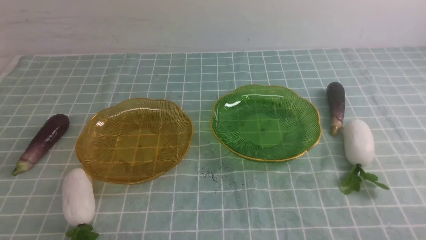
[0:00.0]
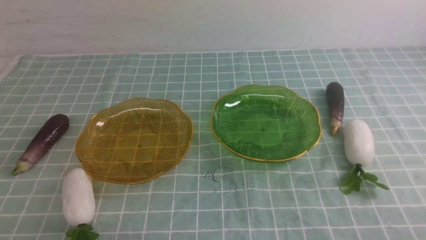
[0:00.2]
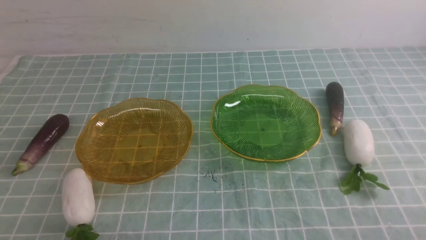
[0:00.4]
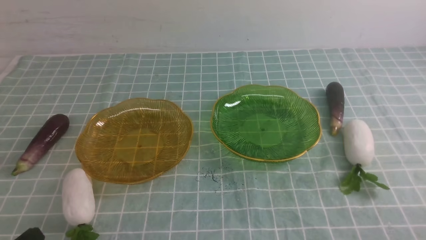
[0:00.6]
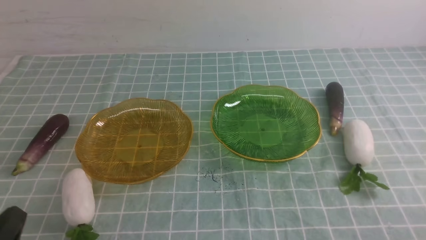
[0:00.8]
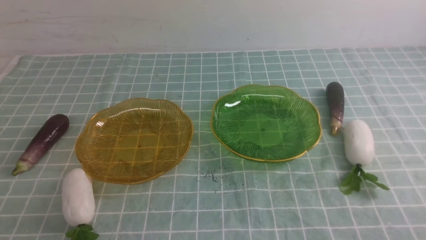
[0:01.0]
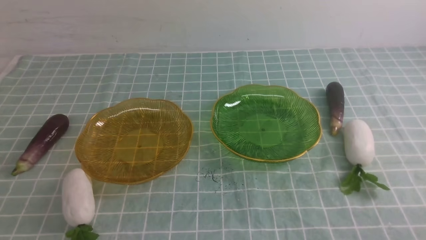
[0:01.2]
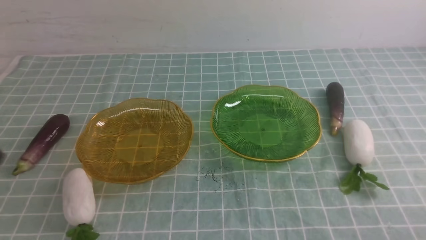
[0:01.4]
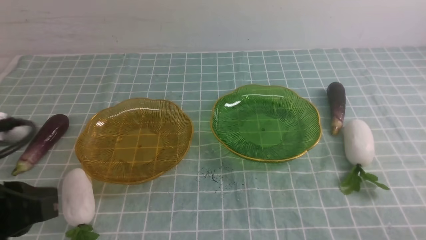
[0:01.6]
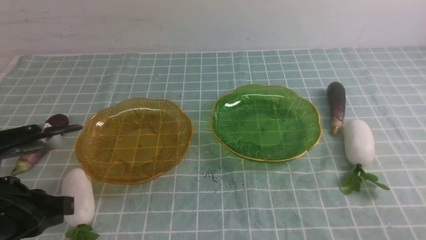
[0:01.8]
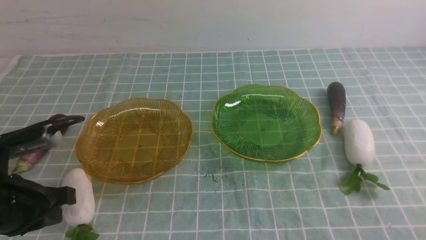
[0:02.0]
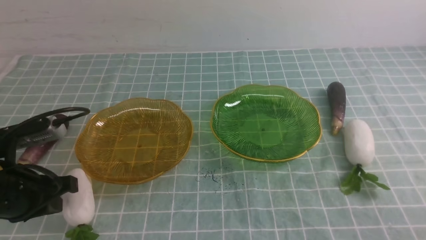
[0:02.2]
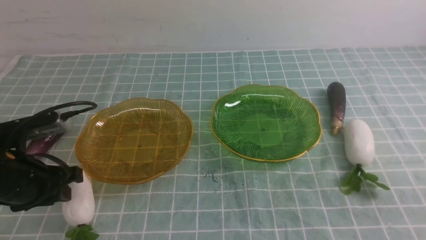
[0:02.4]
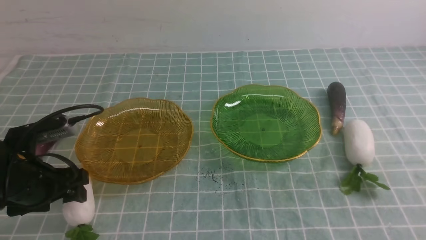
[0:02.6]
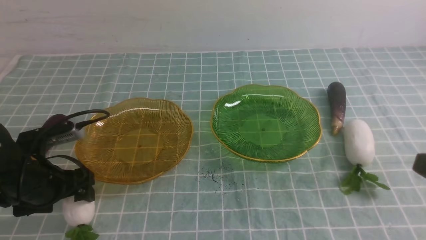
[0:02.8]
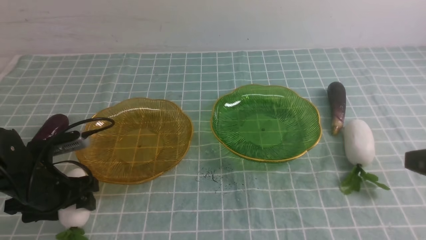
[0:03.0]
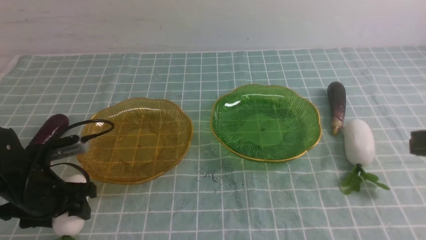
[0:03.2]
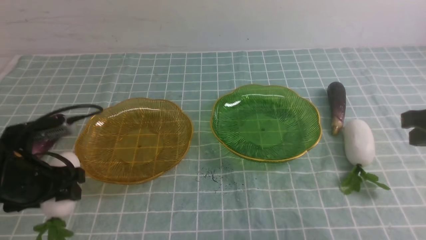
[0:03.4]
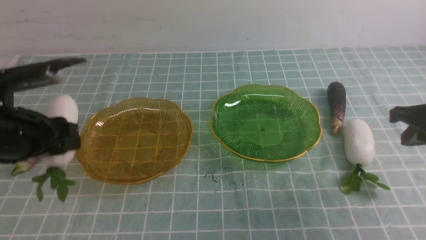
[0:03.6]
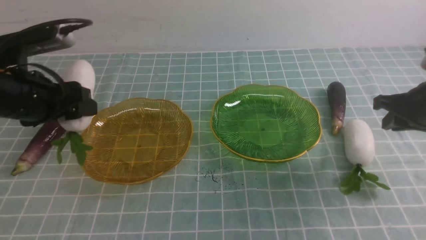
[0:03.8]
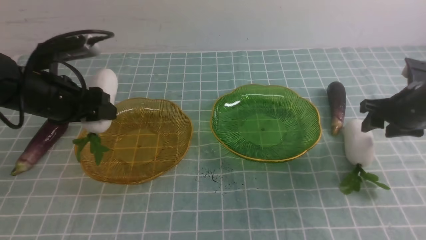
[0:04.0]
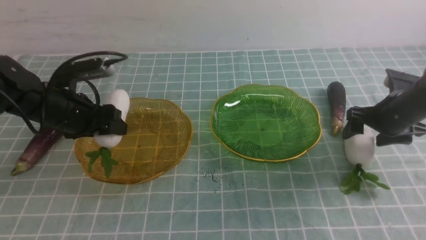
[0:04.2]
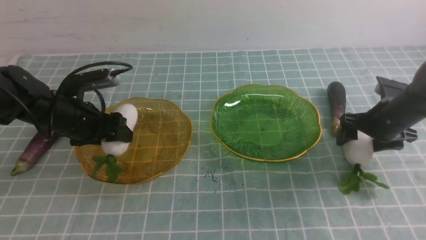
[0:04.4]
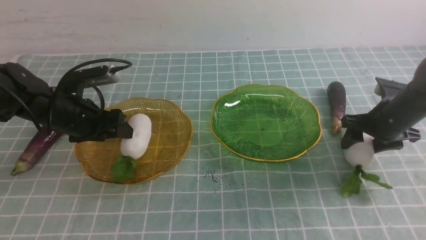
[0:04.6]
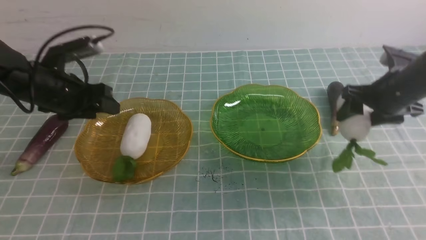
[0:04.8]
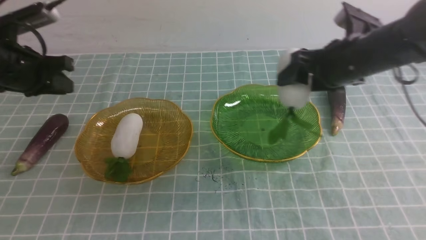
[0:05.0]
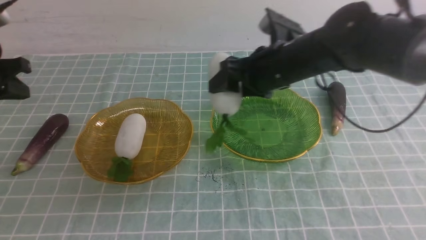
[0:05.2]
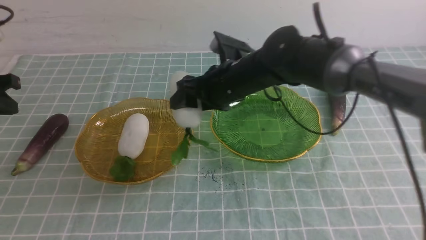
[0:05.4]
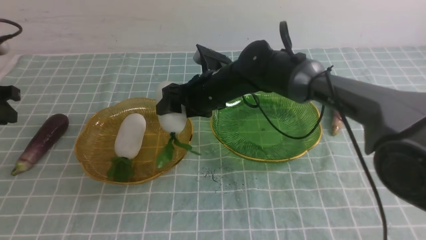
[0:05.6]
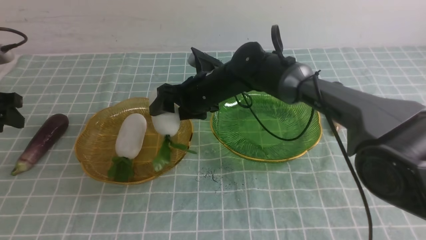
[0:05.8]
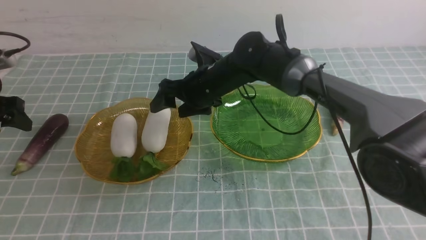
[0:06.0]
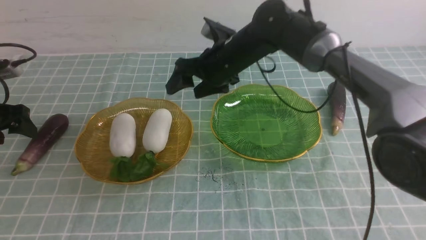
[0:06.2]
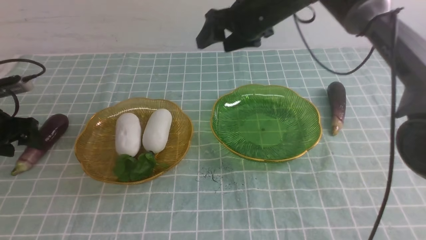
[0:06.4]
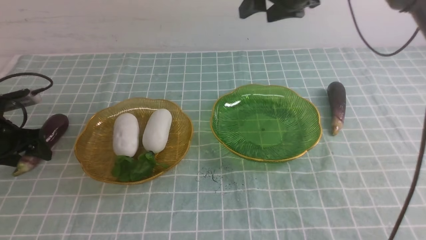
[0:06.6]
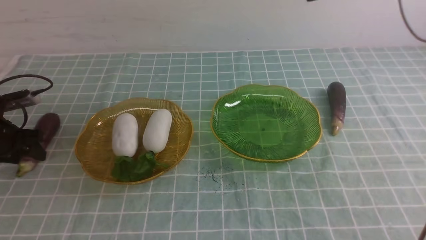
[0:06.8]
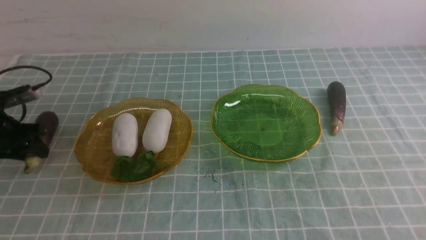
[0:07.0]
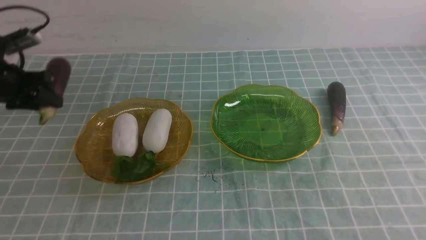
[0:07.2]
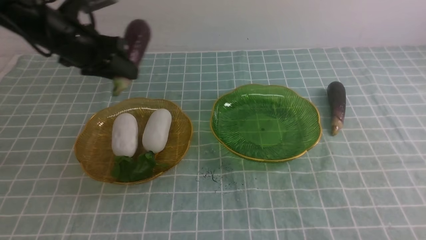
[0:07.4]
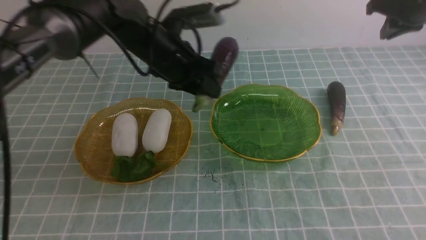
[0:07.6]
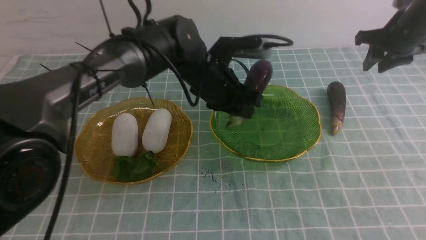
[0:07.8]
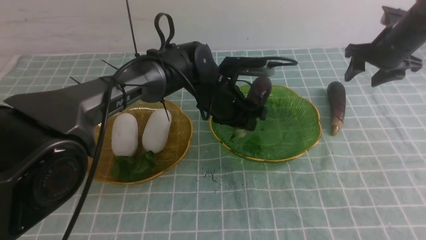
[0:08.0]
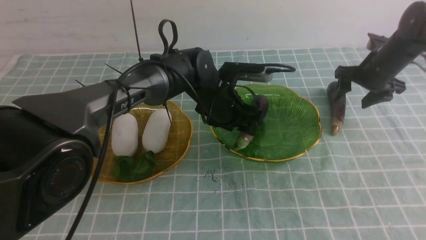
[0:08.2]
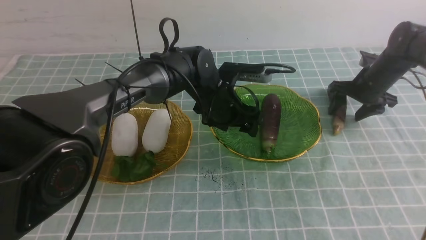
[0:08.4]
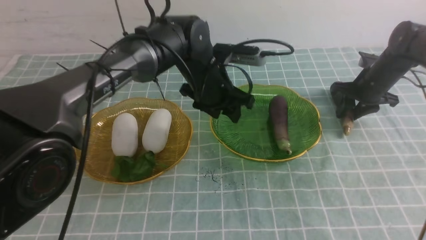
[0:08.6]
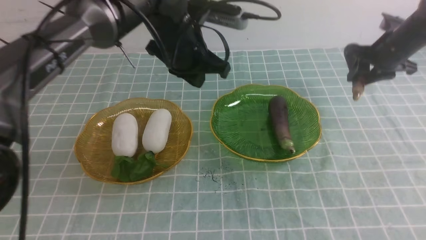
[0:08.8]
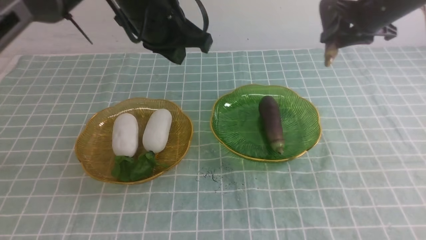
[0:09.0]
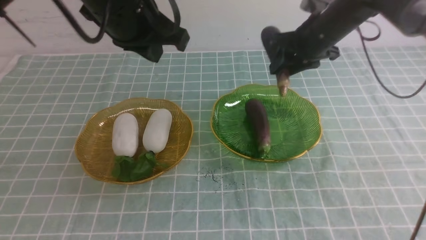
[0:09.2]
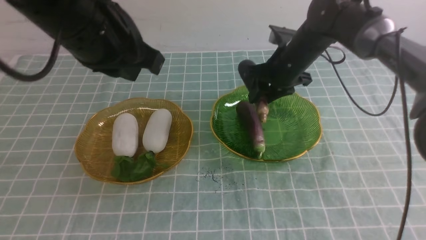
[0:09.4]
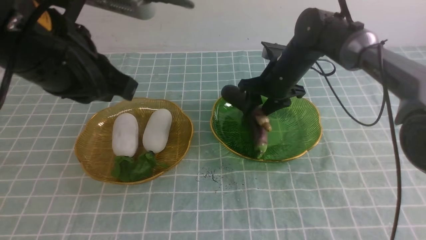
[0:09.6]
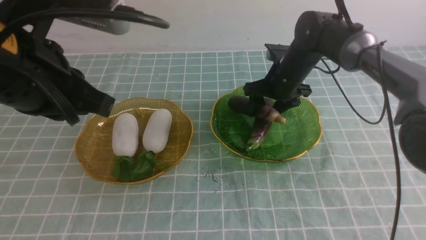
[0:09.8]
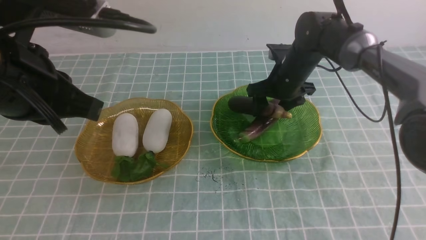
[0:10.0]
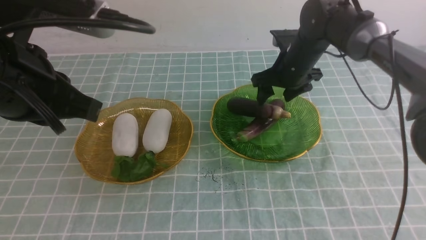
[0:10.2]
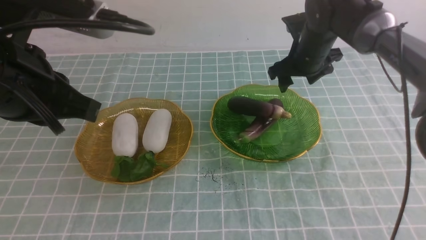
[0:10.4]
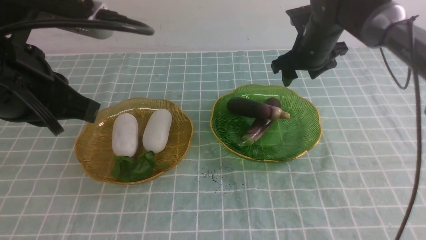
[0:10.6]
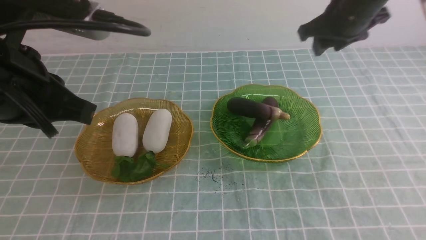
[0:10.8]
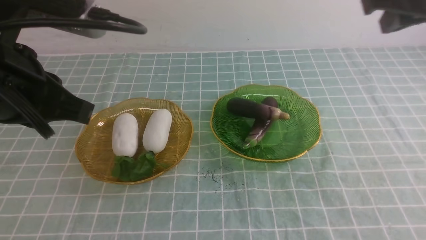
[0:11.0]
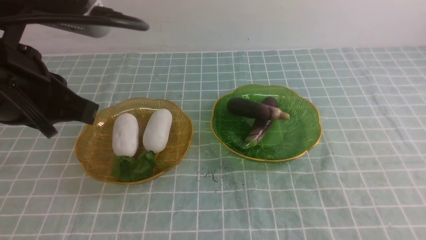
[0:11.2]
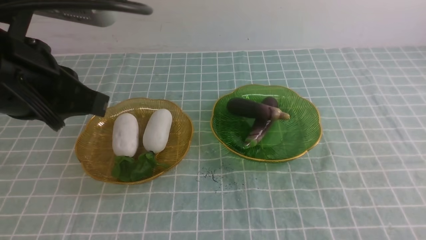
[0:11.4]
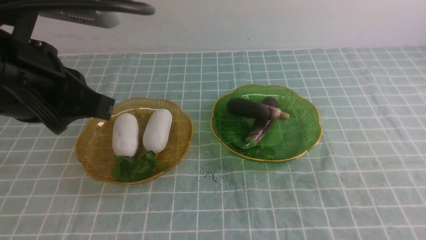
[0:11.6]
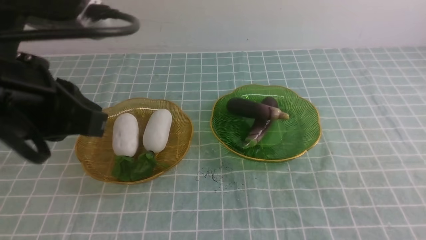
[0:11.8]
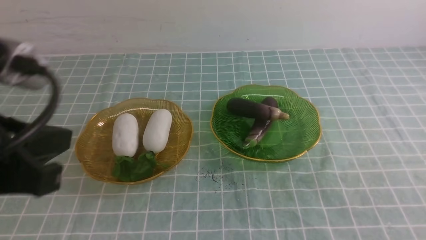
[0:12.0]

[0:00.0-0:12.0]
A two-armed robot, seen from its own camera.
Step, 0:00.0 to 0:04.0: use the left arm to grab a radish and put it into the left plate.
Step, 0:04.2 to 0:05.8: use the right arm to grab a radish and put it into the left plate.
Step, 0:06.0 to 0:08.2: use the left arm to grab an eggplant and put it into the right plate.
Step, 0:08.4 to 0:10.2: use the right arm to grab an eggplant and put it into the right plate.
0:00.0 to 0:01.6: The left gripper is displaced upward and forward by about 15 cm.
0:01.6 to 0:03.0: The left gripper is displaced forward and downward by some 20 cm, and opens up.
0:03.0 to 0:04.4: The left gripper heads forward, covering roughly 10 cm, and moves approximately 10 cm upward and comes back; the right gripper shifts approximately 25 cm forward and downward, and opens up.
0:04.4 to 0:06.0: The right gripper moves to the left, approximately 30 cm; the left gripper travels to the left by approximately 15 cm, and closes and opens again.
0:06.0 to 0:07.6: The grippers both shift to the right by roughly 30 cm. The left gripper closes up; the right gripper closes its fingers.
0:07.6 to 0:09.0: The left gripper heads upward and backward, covering approximately 10 cm, and closes its fingers. Meanwhile the right gripper moves to the left, some 10 cm, goes downward and returns, roughly 15 cm each way, and opens, then closes again.
0:09.0 to 0:10.4: The right gripper travels to the left by roughly 10 cm, and opens. Meanwhile the left gripper goes roughly 20 cm backward and to the left.
0:10.4 to 0:12.0: The left gripper shifts approximately 10 cm backward. Meanwhile the right gripper moves backward, some 50 cm, and closes.

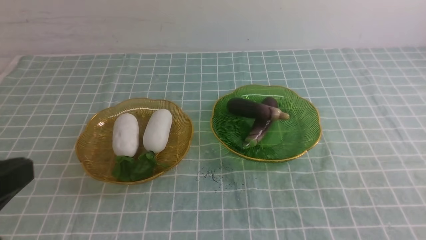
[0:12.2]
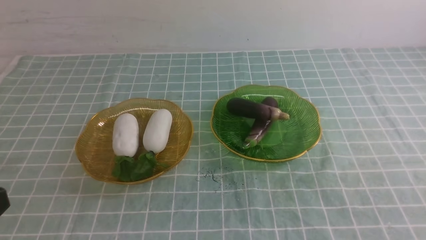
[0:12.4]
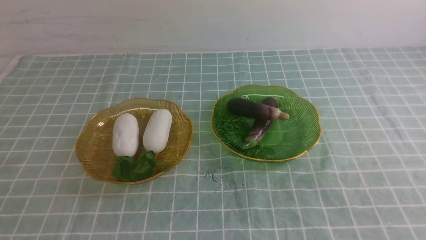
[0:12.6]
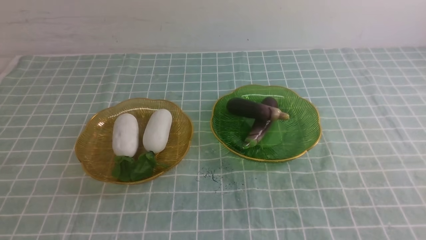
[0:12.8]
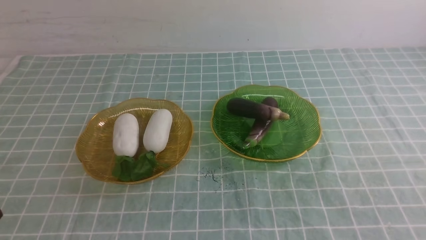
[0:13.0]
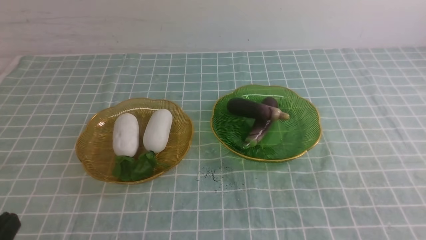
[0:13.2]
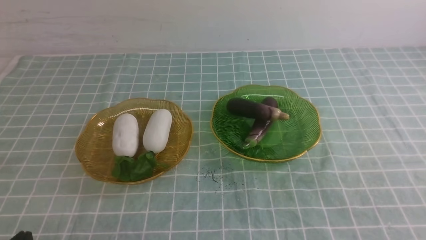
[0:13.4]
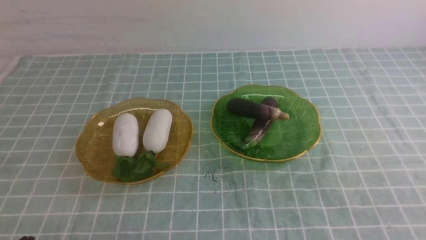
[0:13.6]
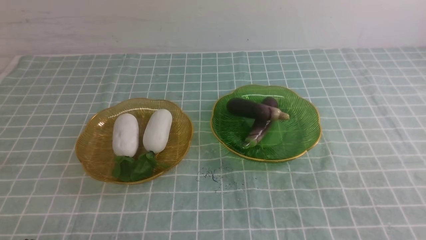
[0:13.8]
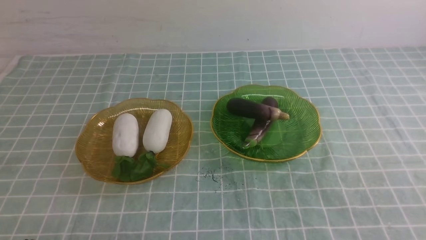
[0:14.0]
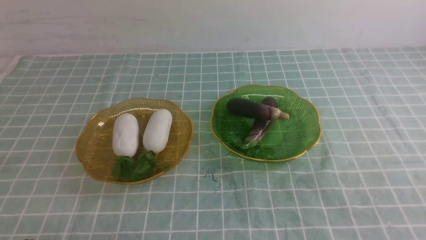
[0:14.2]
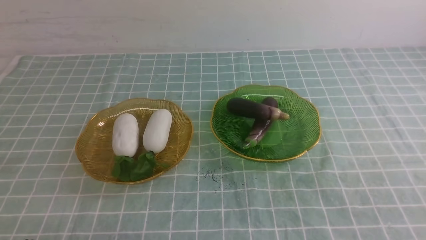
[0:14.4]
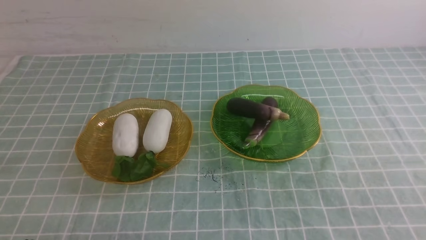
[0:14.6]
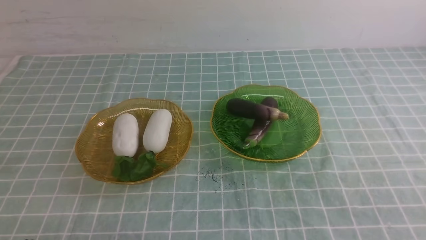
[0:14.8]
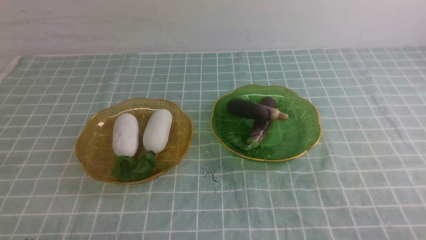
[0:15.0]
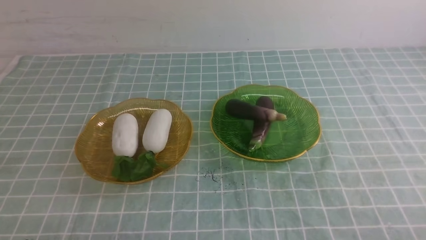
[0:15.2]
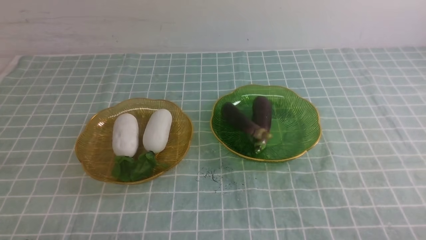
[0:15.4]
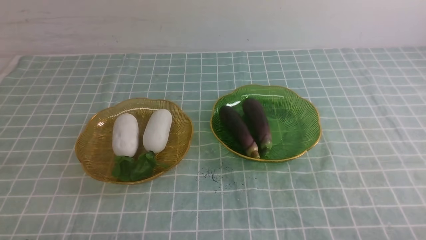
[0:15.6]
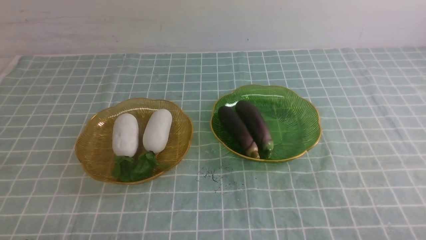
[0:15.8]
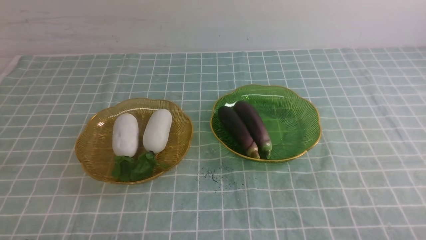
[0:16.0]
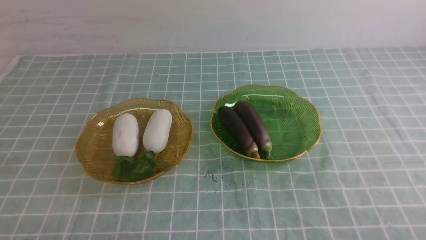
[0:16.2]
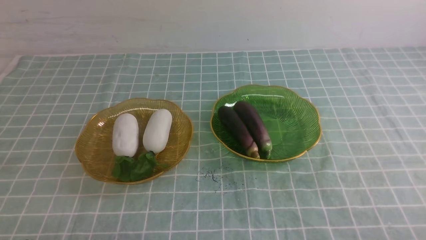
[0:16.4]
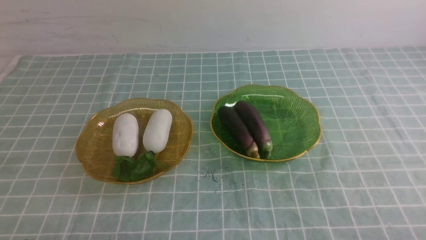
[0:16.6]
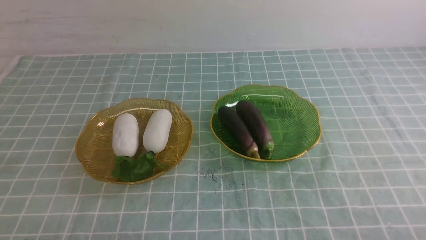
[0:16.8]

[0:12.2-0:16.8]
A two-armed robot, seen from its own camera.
0:12.2 to 0:13.8: The left gripper is displaced downward by approximately 20 cm.
0:15.2 to 0:16.8: The two grippers keep their place.
